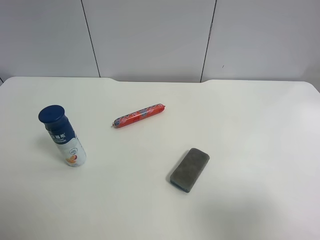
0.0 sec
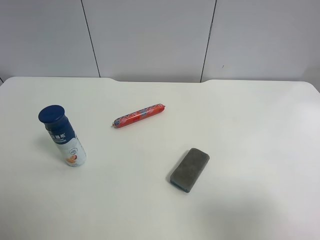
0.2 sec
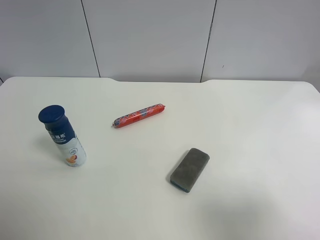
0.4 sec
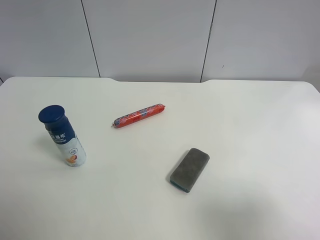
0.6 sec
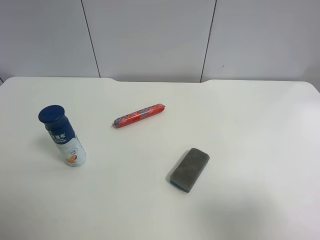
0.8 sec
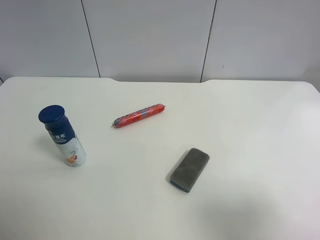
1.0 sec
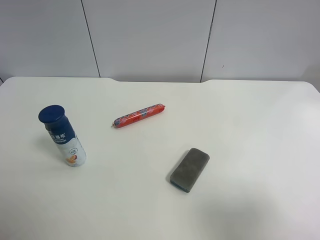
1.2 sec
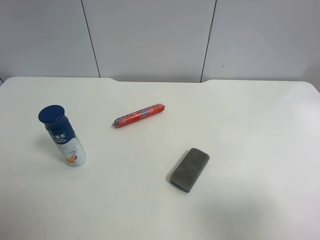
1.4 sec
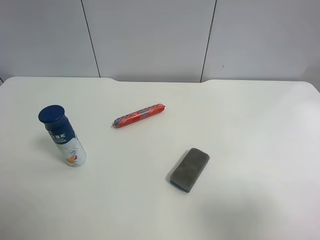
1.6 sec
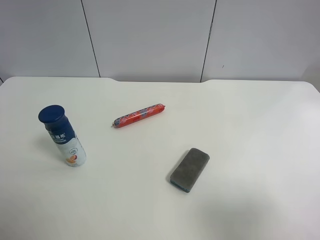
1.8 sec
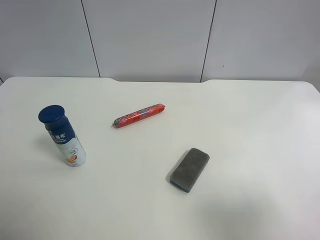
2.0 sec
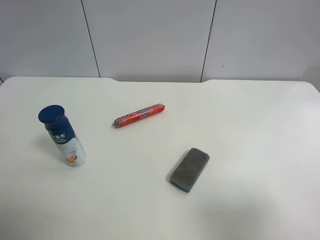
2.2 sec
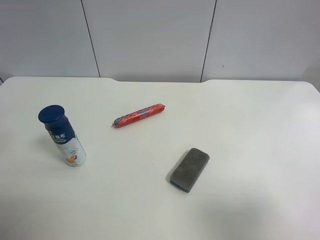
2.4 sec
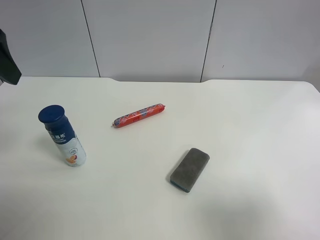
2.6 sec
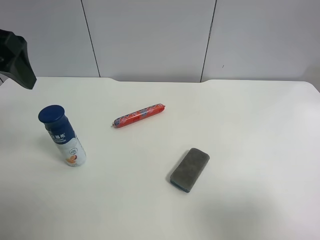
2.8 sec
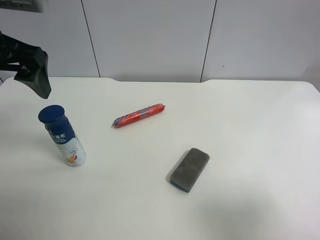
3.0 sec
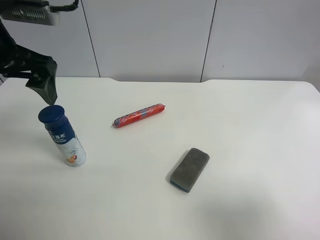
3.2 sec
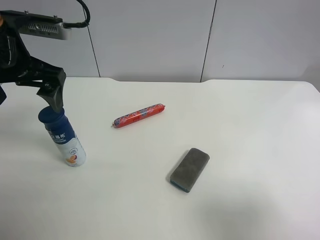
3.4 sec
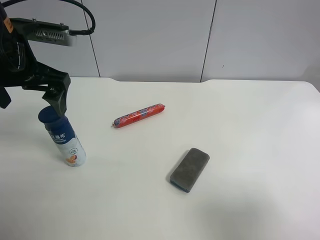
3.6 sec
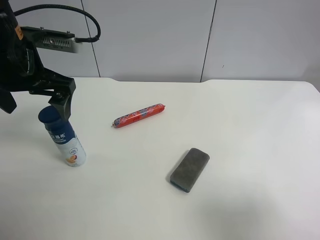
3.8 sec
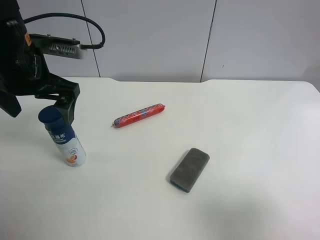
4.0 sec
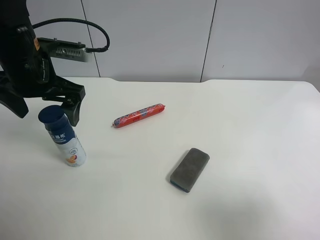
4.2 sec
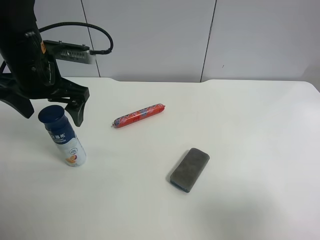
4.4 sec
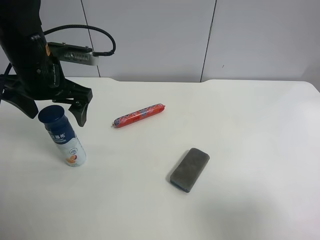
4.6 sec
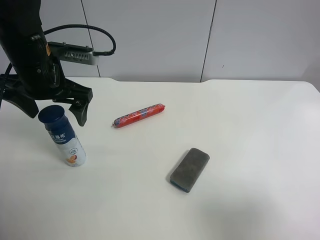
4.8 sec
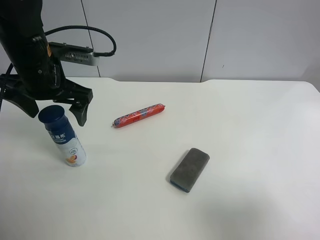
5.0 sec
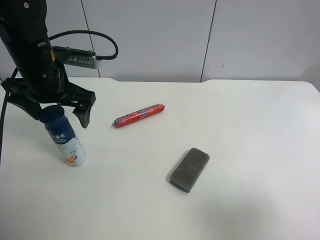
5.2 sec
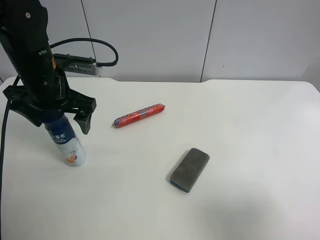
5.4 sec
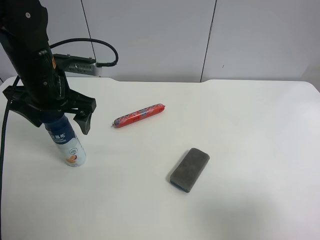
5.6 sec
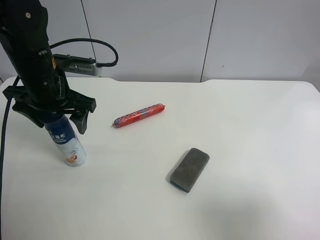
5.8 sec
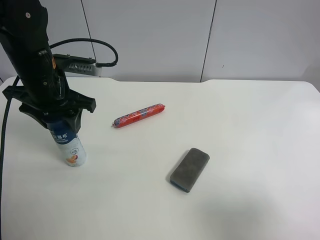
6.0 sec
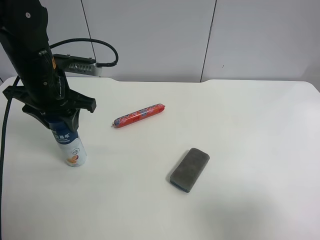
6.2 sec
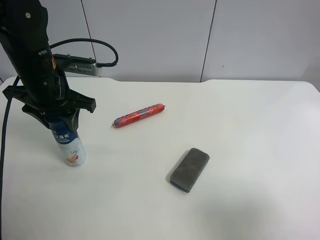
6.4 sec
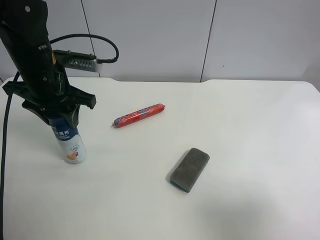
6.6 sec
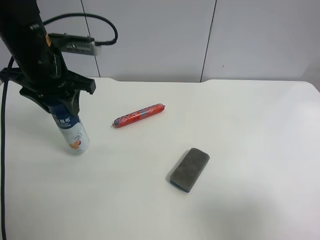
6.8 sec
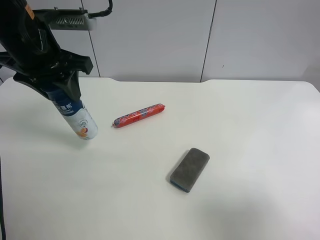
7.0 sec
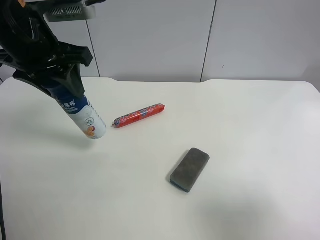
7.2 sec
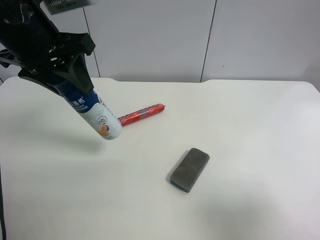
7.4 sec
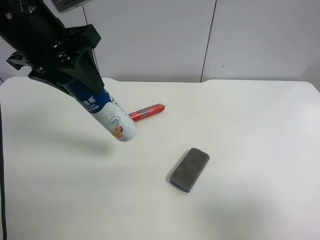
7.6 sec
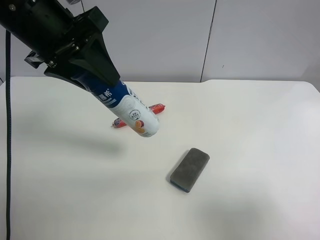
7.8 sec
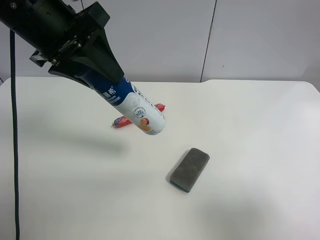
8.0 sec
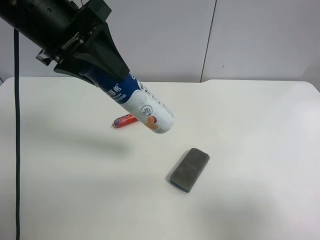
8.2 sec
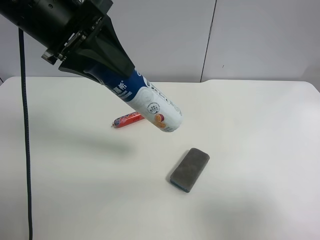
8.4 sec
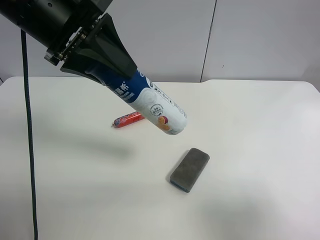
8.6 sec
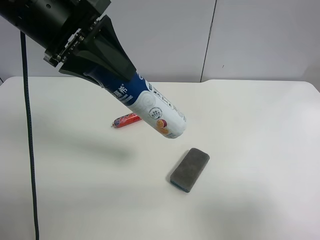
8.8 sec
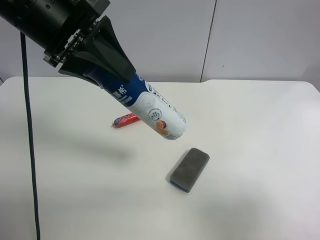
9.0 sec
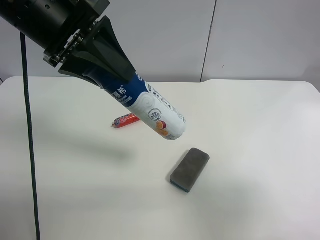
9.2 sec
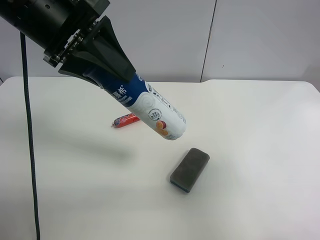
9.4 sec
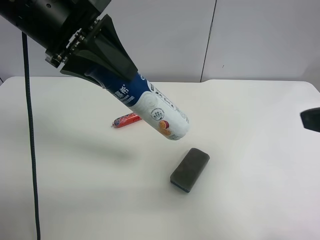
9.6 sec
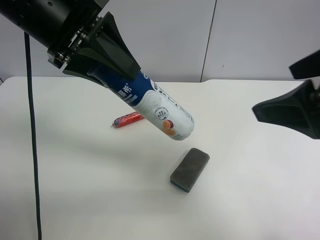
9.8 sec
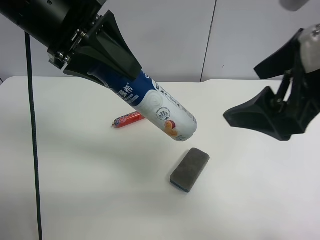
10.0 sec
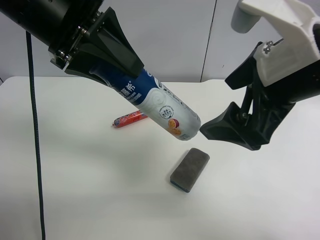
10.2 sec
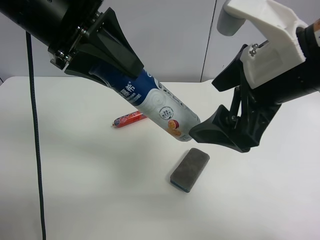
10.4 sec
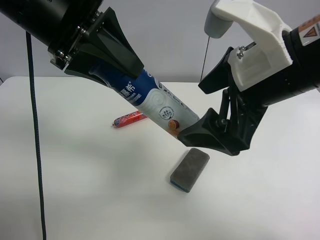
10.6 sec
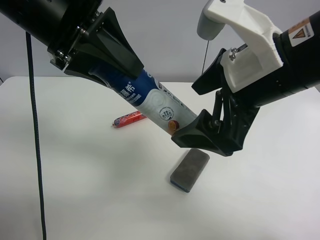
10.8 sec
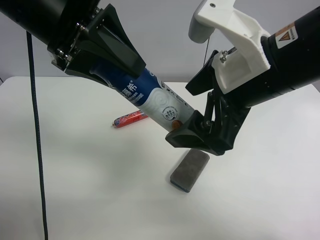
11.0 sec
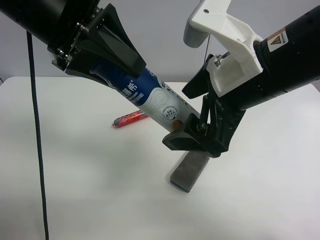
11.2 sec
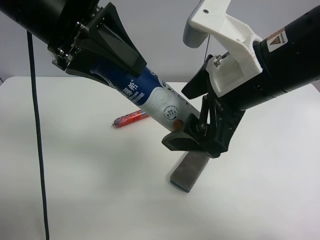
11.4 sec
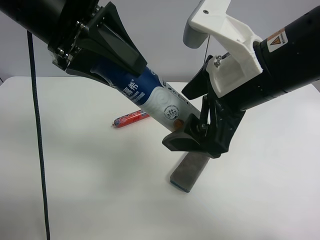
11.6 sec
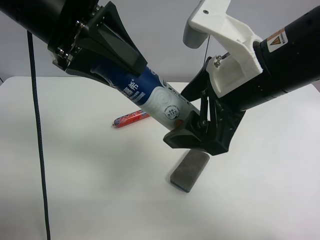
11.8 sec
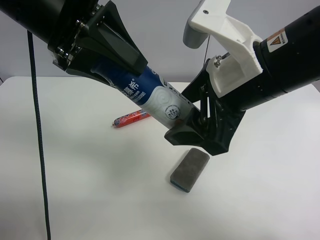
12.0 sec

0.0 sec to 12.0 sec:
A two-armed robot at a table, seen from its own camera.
Task of the whole recording: use the left gripper to pick up the item and transfer it from the left gripper to the right gripper.
1.6 sec to 3.0 sec: The left gripper travels forward and to the right by roughly 20 cm.
3.0 sec to 4.4 sec: The left gripper shifts approximately 10 cm downward and forward.
4.4 sec to 6.0 sec: The left gripper closes.
6.0 sec to 7.6 sec: The left gripper is displaced upward by roughly 10 cm.
7.6 sec to 9.0 sec: There are only small adjustments of the grippers.
9.0 sec to 10.4 sec: The right gripper goes about 20 cm forward and to the left.
10.4 sec to 12.0 sec: The right gripper closes.

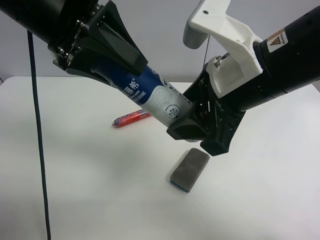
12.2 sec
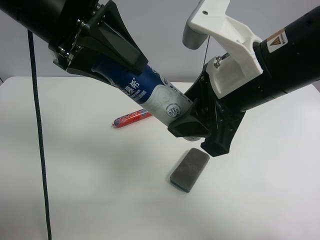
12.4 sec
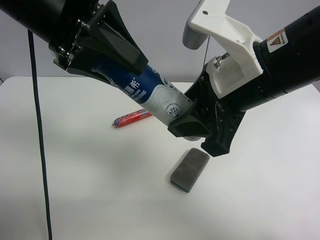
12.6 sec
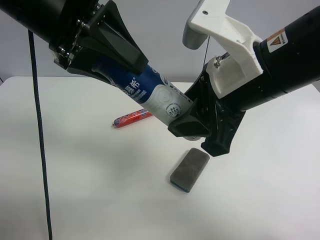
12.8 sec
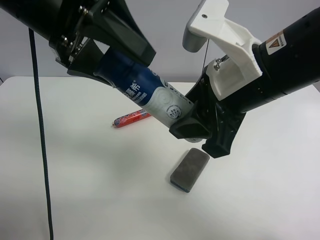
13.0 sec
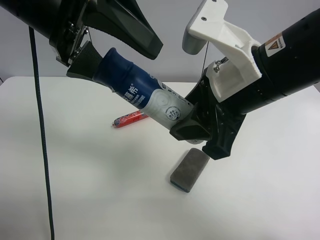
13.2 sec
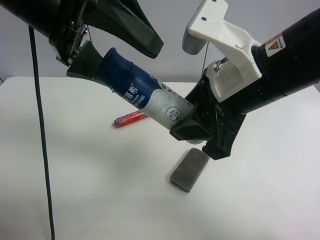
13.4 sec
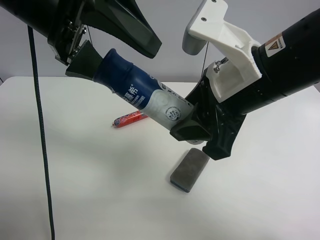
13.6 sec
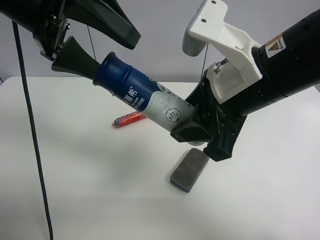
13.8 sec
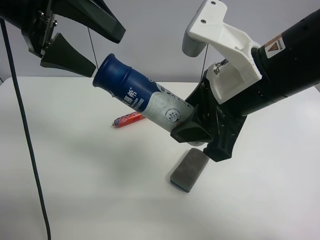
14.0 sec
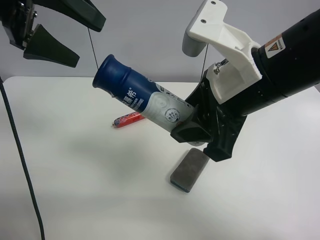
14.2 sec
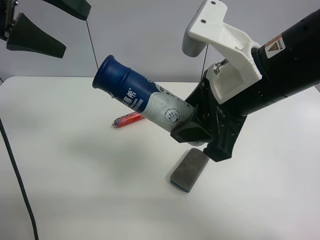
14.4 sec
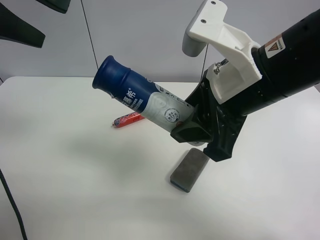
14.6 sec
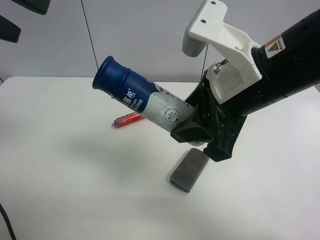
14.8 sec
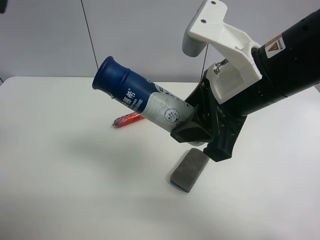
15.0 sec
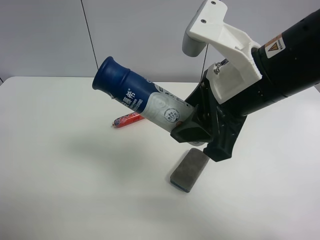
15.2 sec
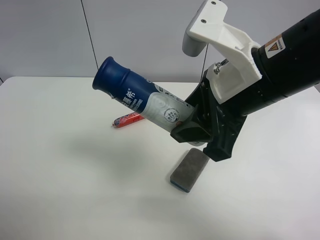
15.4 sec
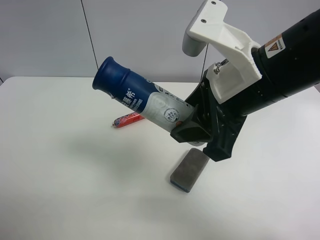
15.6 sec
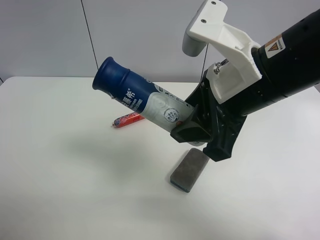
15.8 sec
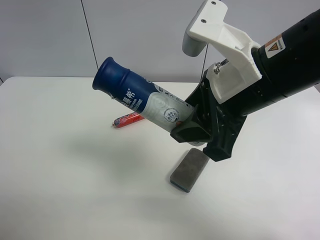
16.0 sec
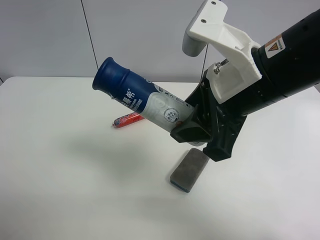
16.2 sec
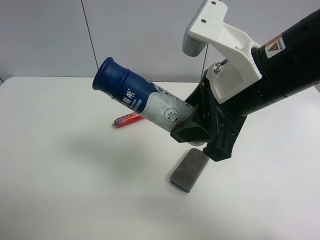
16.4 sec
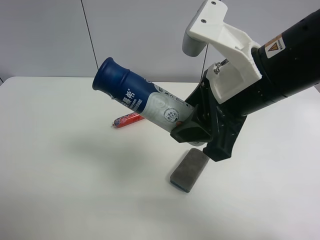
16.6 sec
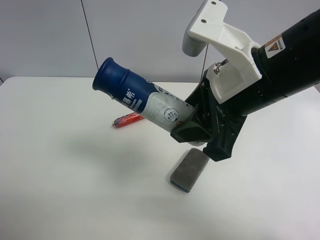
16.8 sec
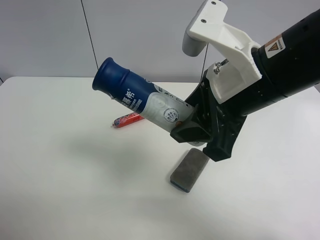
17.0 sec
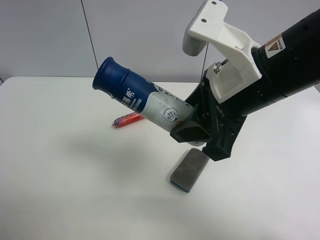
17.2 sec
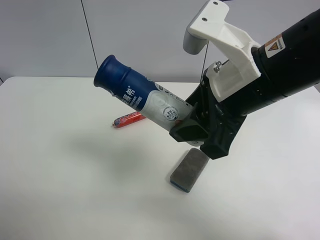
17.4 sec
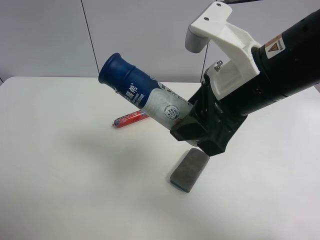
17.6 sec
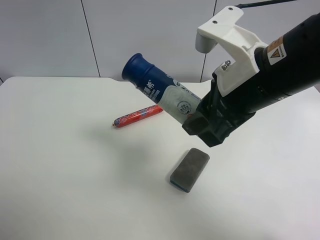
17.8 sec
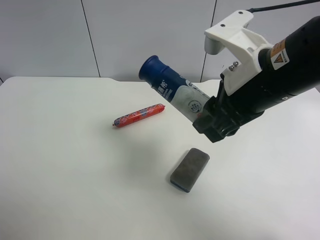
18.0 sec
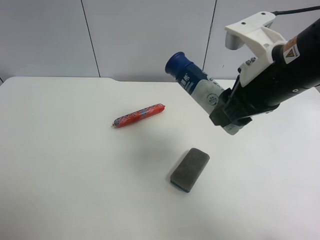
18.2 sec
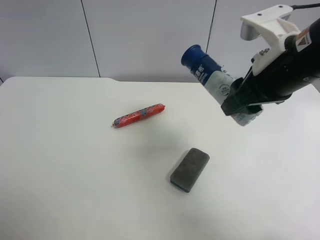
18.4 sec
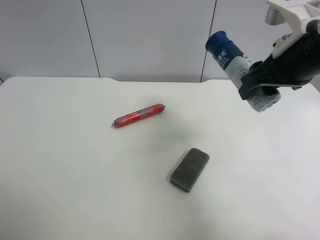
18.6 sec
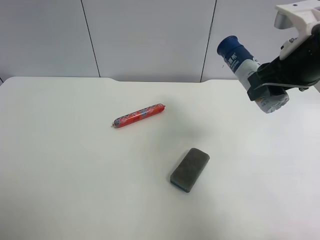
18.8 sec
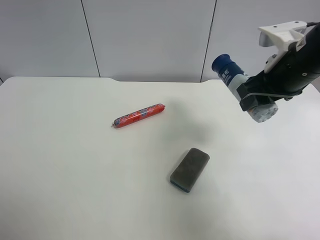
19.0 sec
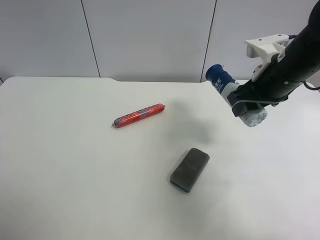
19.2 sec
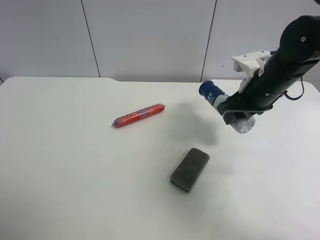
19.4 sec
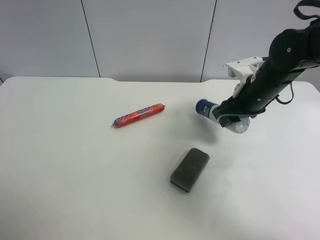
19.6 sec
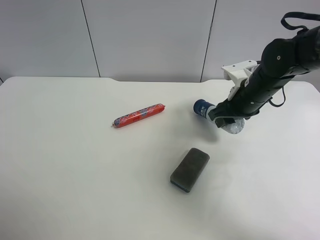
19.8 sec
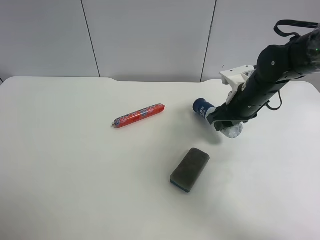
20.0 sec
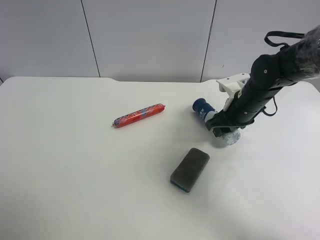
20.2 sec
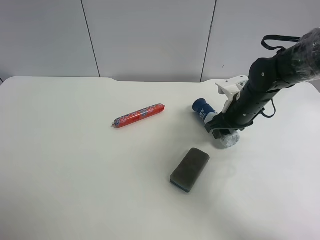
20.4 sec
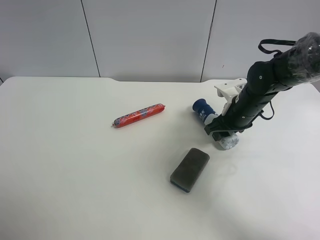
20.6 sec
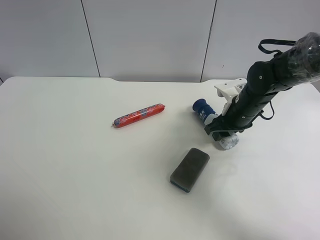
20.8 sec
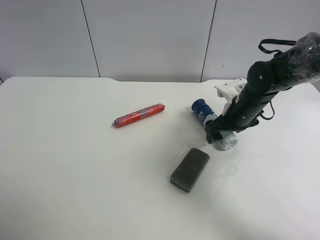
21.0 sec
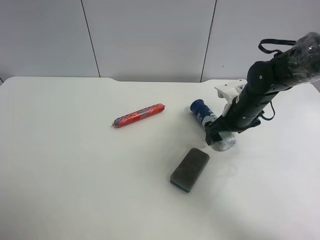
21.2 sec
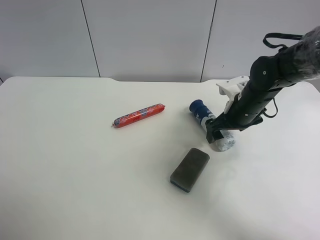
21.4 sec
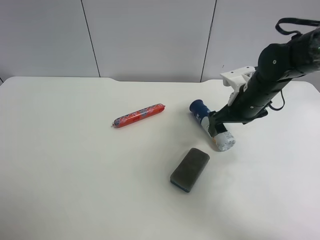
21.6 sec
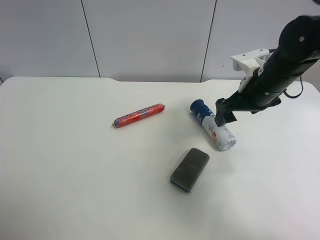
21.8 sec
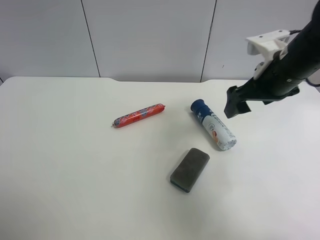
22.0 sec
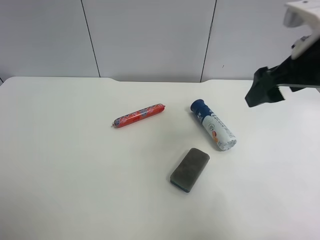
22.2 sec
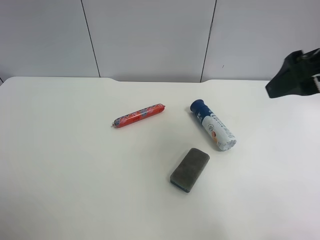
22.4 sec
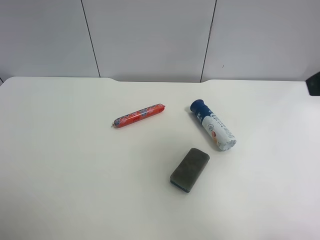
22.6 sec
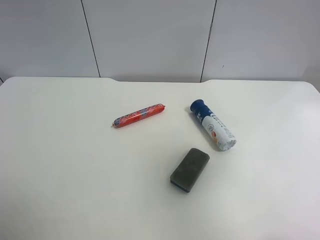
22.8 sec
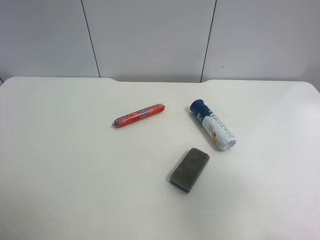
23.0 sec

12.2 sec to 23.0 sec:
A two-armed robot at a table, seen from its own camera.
Task of the whole recording: use the left gripper to pick up the item and transfer it from the left gripper to the right gripper.
12.2 sec to 13.8 sec: The left gripper opens.
13.8 sec to 15.2 sec: The left gripper heads backward, to the left and upward, covering about 20 cm.
16.8 sec to 18.4 sec: The right gripper goes approximately 5 cm to the right.
18.4 sec to 20.0 sec: The right gripper goes approximately 20 cm downward and forward.
20.0 sec to 21.4 sec: The right gripper opens its fingers.
21.4 sec to 23.0 sec: The right gripper heads backward and upward, covering some 35 cm.
